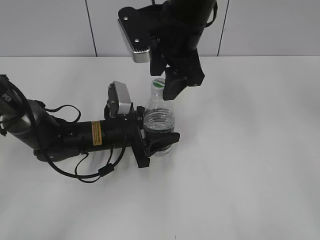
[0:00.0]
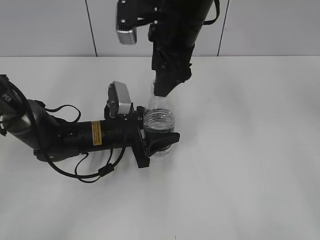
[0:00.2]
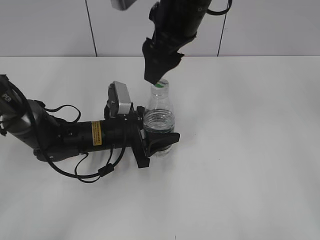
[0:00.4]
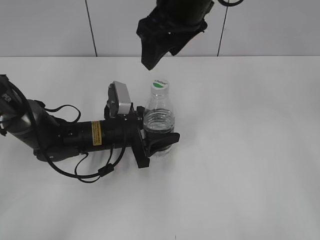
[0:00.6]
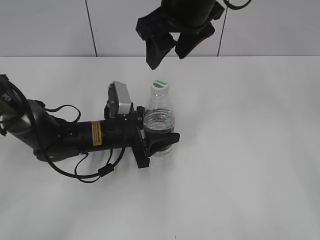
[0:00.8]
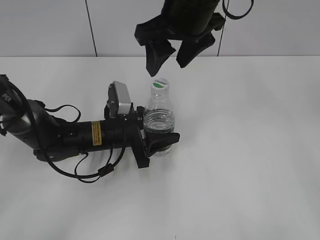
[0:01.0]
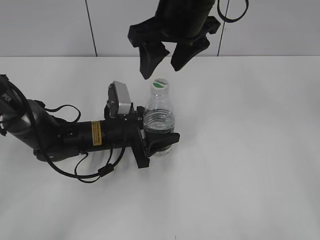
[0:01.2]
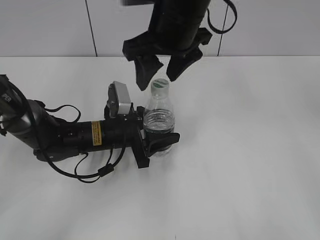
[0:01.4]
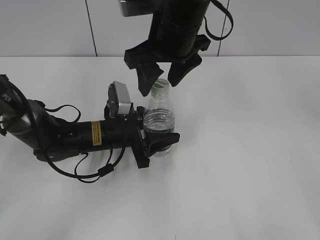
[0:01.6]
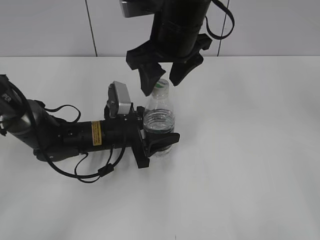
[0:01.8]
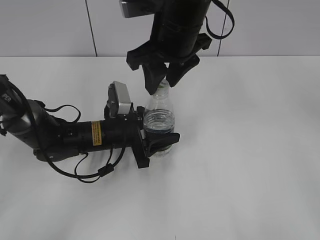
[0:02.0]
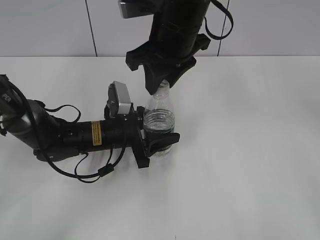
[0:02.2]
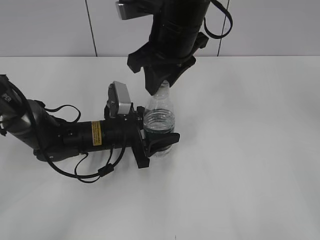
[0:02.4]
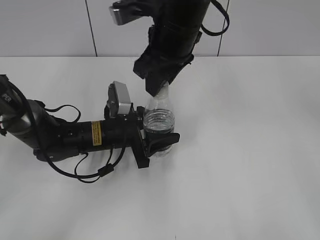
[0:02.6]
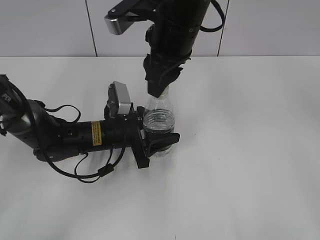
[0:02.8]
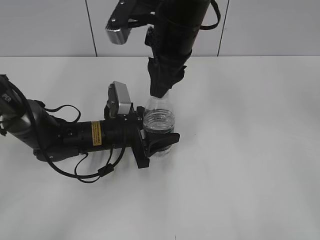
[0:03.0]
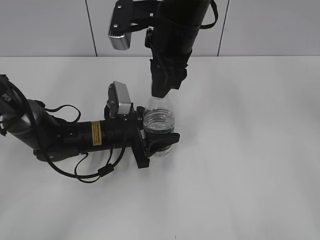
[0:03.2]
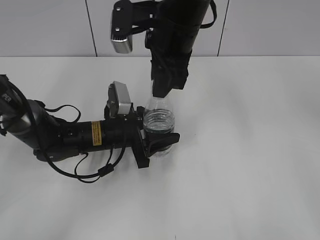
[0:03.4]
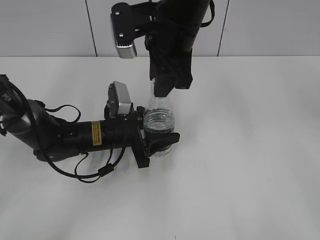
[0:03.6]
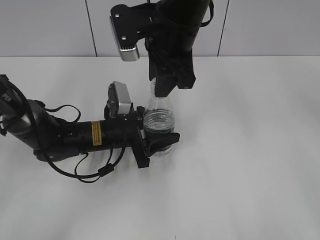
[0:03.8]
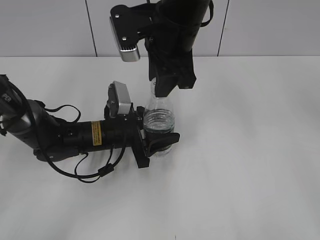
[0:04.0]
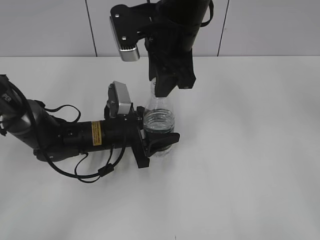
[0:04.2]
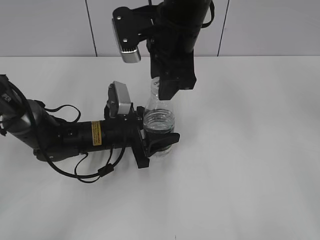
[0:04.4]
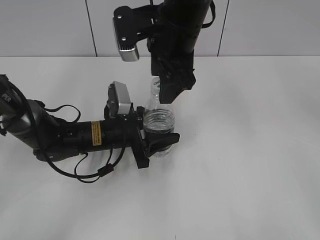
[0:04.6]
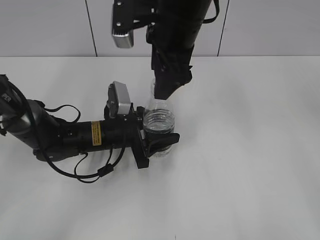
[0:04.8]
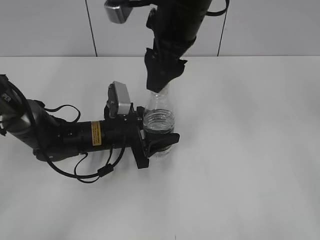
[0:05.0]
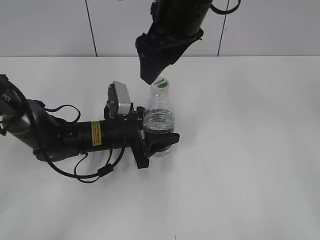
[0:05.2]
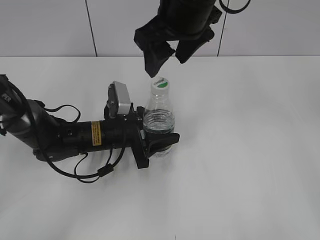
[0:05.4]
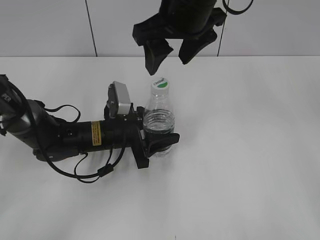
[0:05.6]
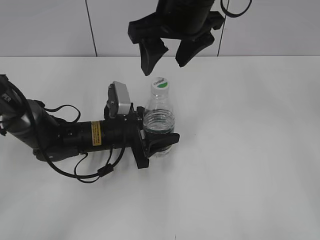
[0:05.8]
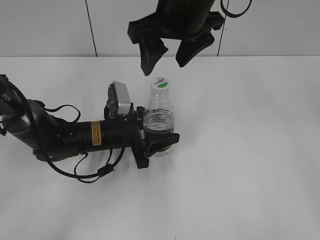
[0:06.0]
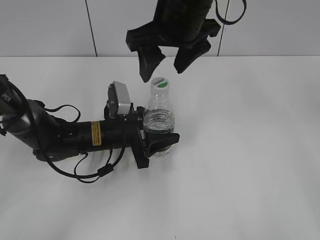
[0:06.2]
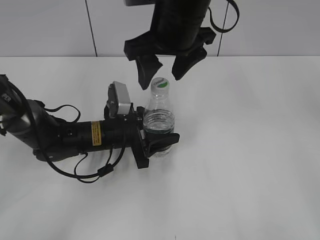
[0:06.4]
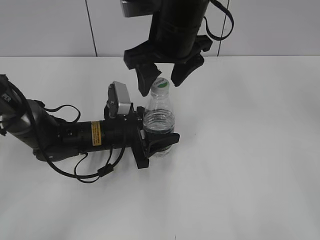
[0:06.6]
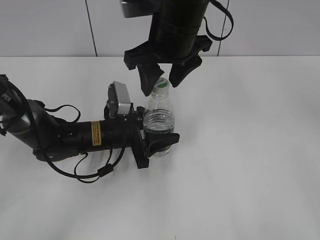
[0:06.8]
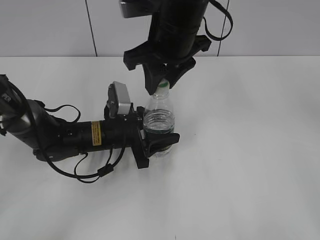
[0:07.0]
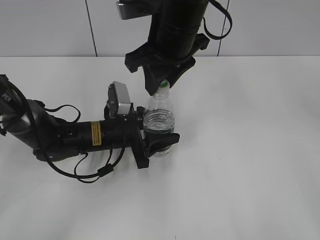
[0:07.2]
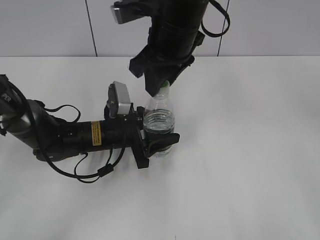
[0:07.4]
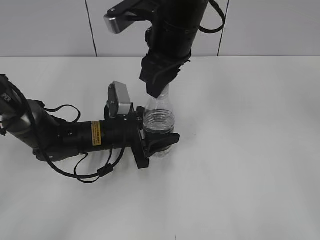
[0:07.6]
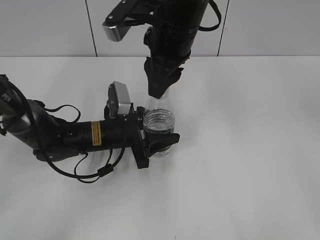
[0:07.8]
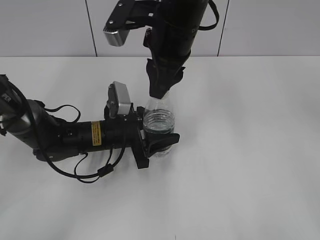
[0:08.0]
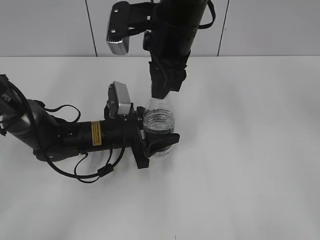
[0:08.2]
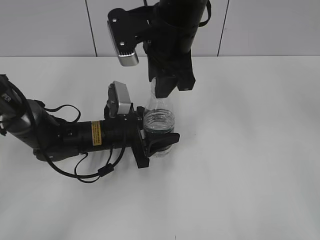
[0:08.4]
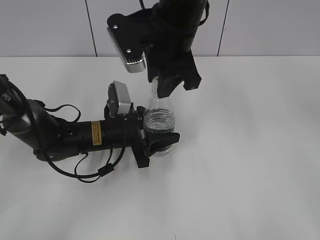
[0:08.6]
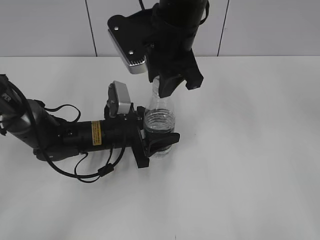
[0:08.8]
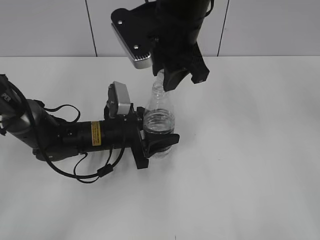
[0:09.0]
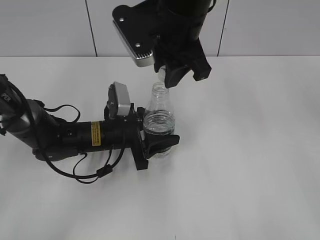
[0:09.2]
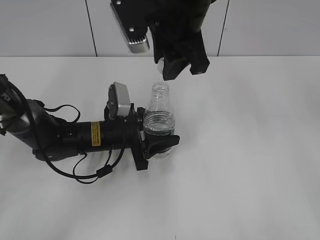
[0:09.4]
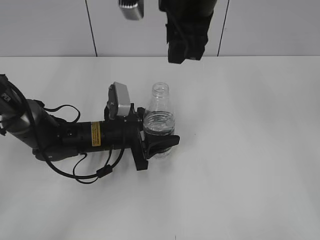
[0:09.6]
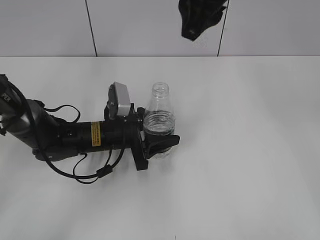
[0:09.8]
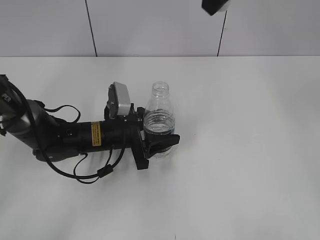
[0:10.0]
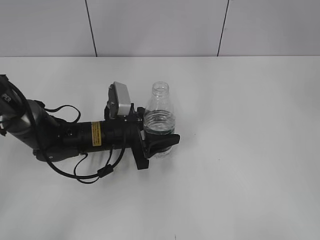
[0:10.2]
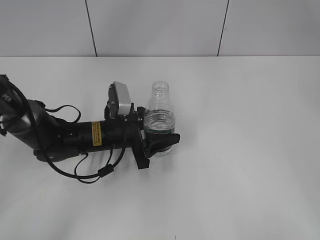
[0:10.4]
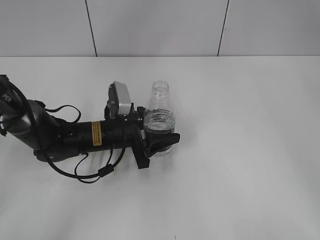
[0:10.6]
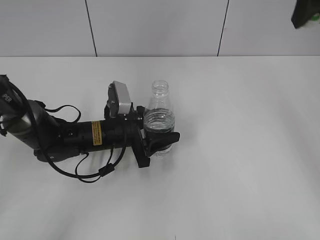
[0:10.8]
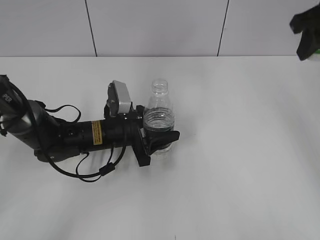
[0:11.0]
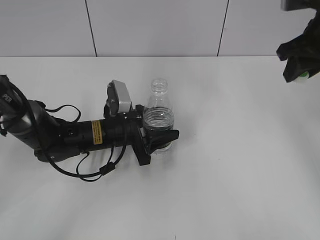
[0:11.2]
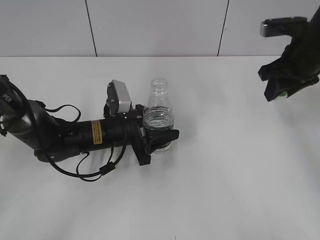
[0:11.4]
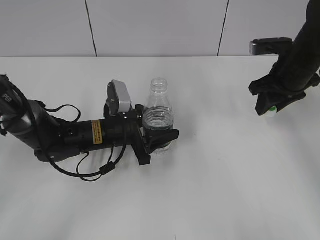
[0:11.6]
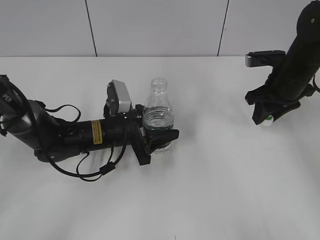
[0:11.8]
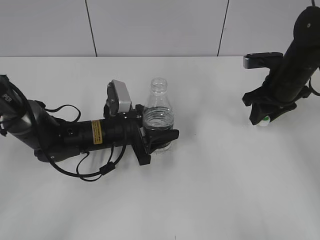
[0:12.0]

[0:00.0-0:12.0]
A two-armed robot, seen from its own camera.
Step, 0:00.0 to 0:09.2: Unscrew the bottle cap with the right gripper while holding the bottle with the left gripper.
0:01.6 to 0:03.0: The right gripper closes up.
0:03.0 to 0:04.4: The right gripper opens its fingers.
0:04.4 to 0:06.0: The right gripper opens up.
0:06.0 to 0:07.6: The right gripper closes up.
0:09.0 to 0:10.4: The right gripper moves upward and to the right, approximately 20 cm.
0:10.4 to 0:12.0: The right gripper goes about 25 cm downward.

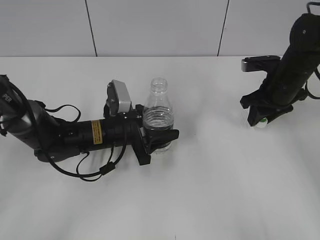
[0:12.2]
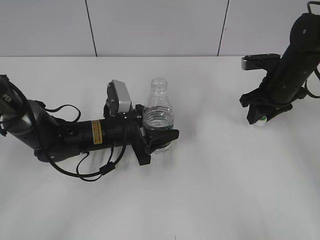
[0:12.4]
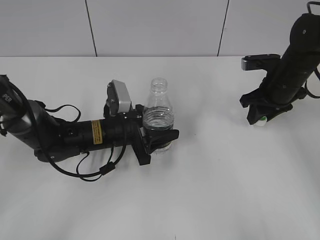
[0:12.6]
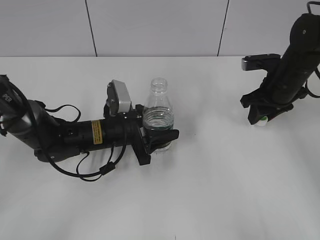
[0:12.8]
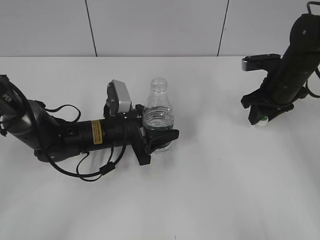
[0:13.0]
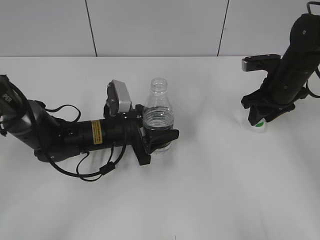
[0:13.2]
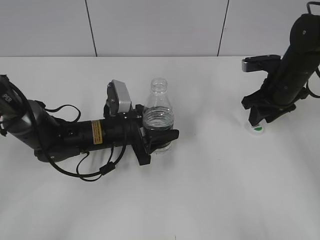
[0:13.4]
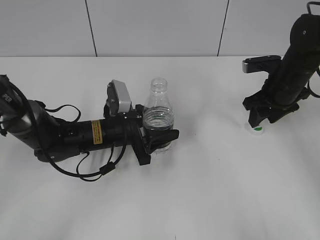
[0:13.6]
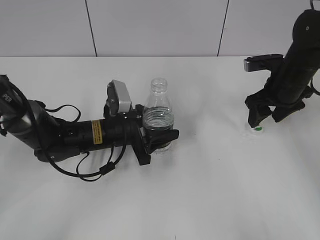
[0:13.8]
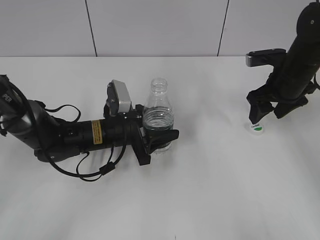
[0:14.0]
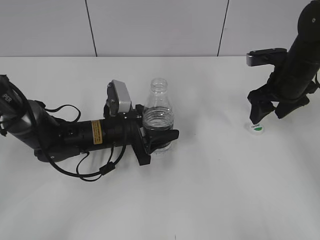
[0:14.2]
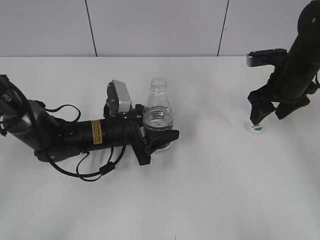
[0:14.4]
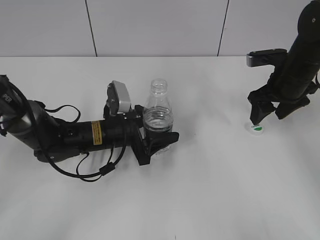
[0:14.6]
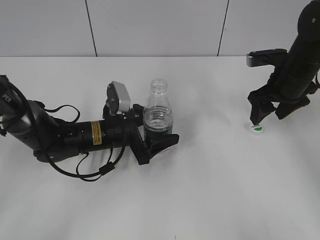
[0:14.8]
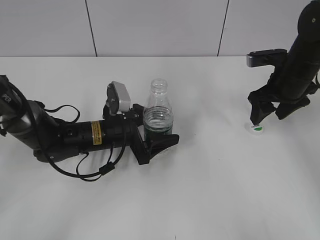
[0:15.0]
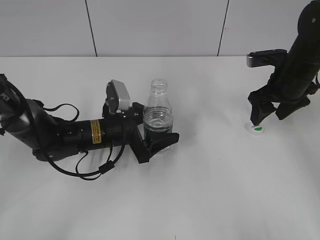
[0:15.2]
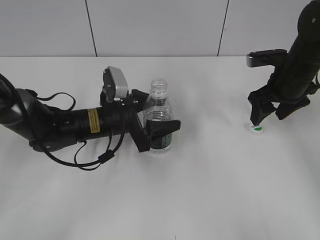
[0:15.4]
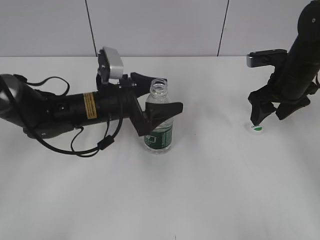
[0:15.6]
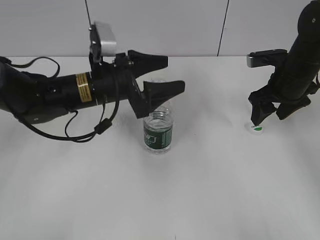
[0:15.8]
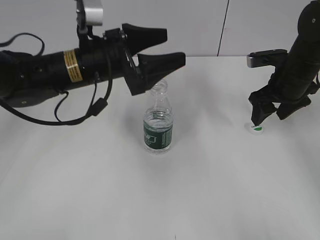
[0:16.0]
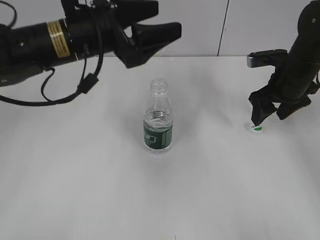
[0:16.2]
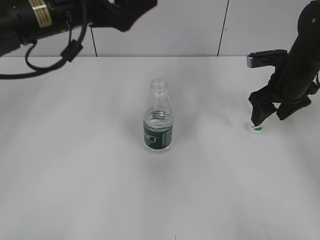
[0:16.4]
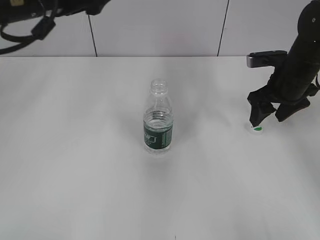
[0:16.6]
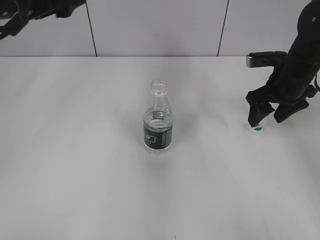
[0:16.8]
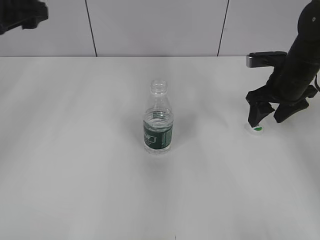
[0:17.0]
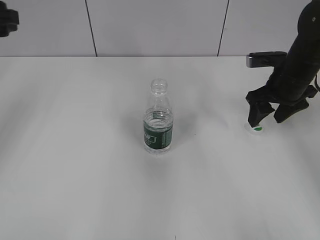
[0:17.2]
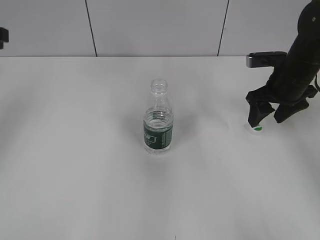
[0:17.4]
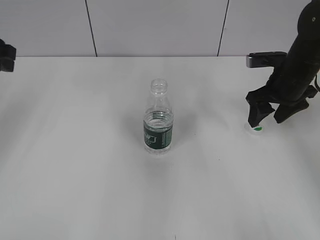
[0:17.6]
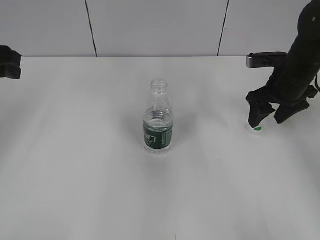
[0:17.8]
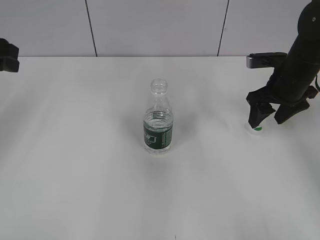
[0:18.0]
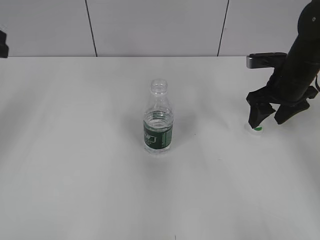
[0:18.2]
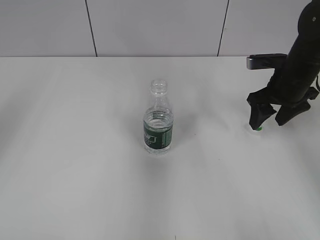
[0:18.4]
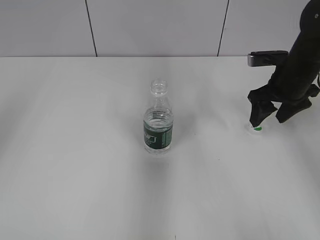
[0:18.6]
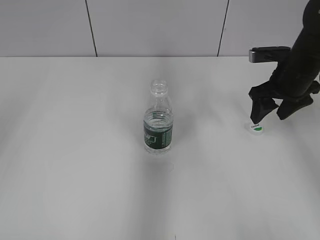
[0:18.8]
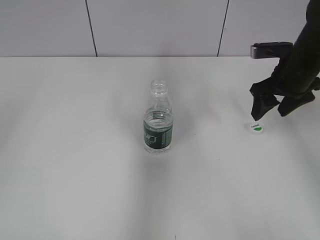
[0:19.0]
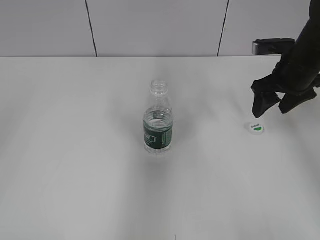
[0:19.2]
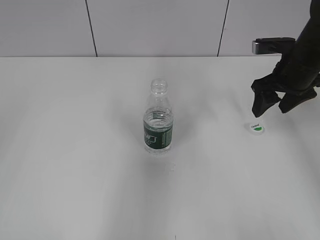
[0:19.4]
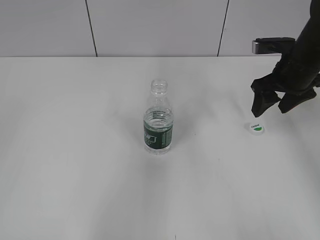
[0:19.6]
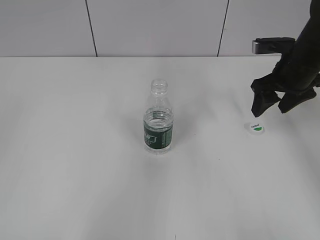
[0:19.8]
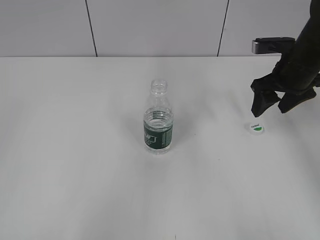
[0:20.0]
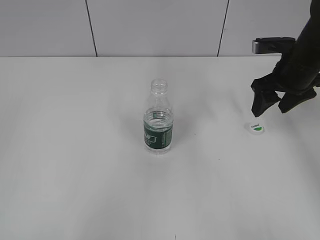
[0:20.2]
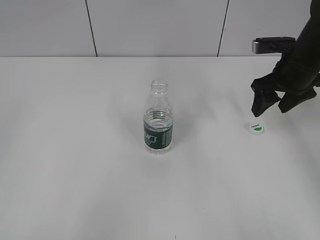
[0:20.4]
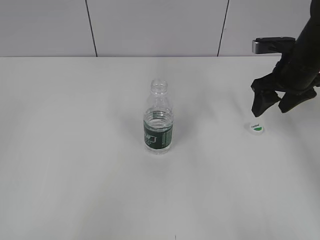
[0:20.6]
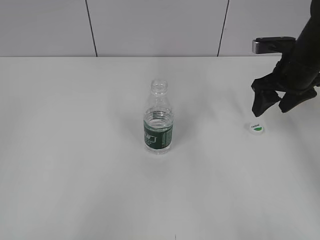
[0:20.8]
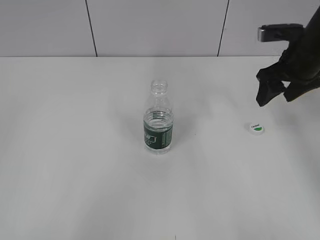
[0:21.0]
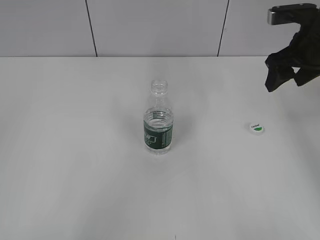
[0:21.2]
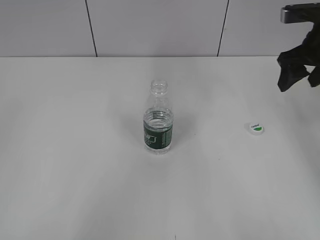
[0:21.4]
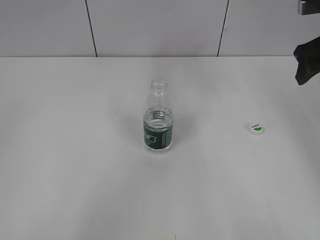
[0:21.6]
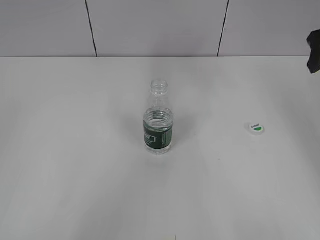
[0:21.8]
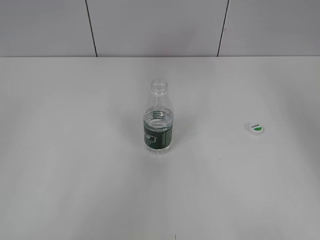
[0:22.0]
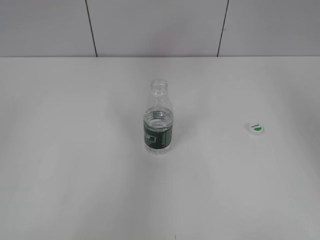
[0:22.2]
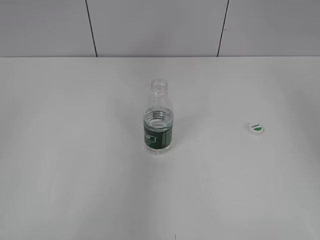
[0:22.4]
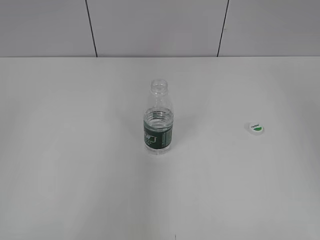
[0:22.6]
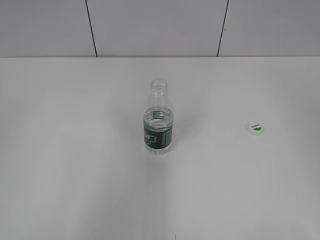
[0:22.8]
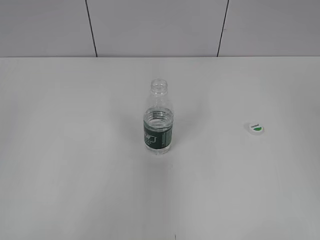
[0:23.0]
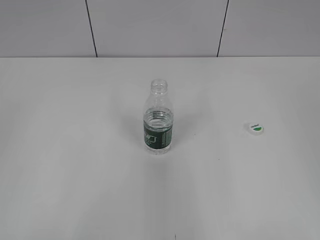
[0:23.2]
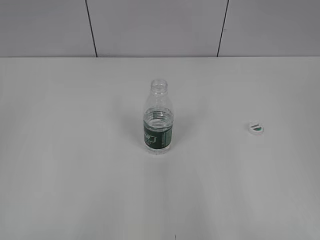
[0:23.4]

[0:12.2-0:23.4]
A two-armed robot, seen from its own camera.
Step, 0:13.8 to 0:15.4: Place the bottle on the table with the left gripper.
0:12.2 to 0:13.8: The right gripper opens.
0:13.8 to 0:15.4: The left gripper opens up.
0:15.4 to 0:17.0: The left gripper goes some 25 cm upward and to the left.
0:17.0 to 0:18.6: The left gripper shifts roughly 15 cm backward, upward and to the left, and closes up.
0:18.6 to 0:20.2: The left gripper travels backward by roughly 25 cm.
0:20.2 to 0:21.8: The right gripper heads upward, covering about 10 cm.
